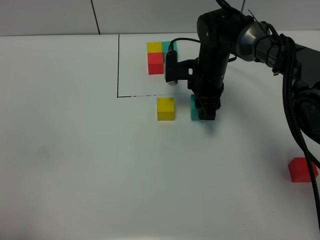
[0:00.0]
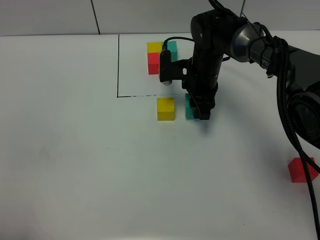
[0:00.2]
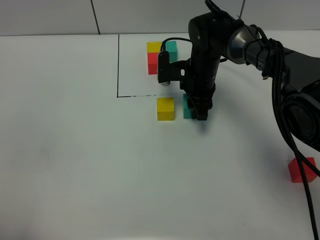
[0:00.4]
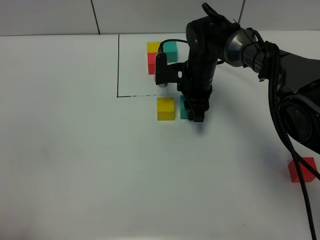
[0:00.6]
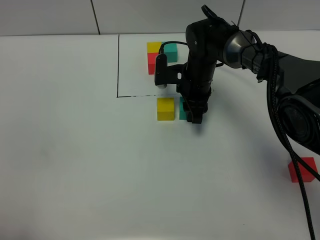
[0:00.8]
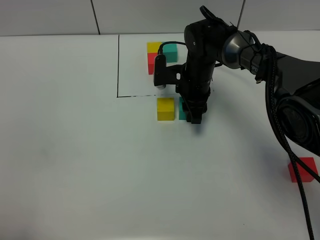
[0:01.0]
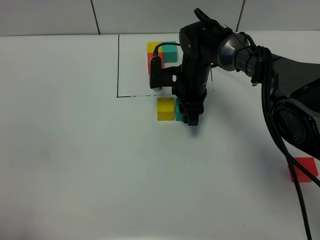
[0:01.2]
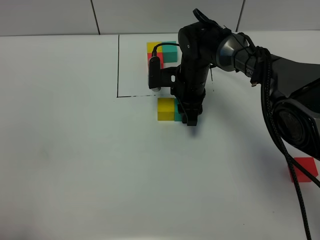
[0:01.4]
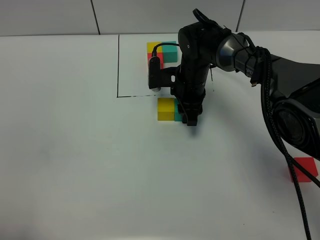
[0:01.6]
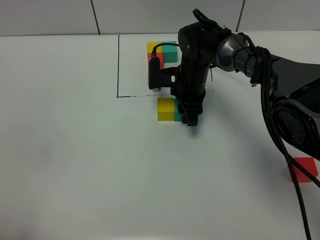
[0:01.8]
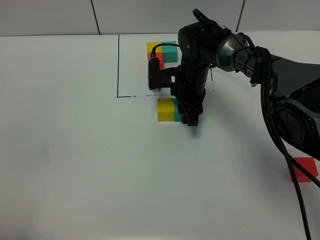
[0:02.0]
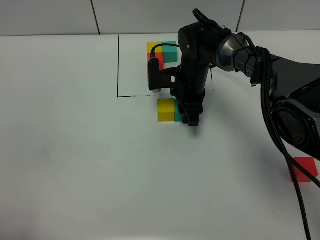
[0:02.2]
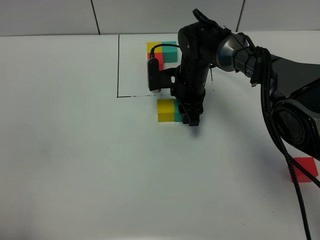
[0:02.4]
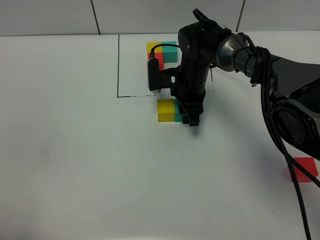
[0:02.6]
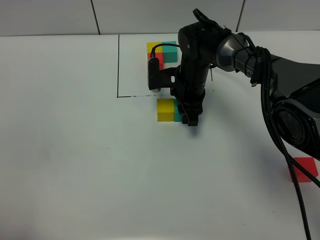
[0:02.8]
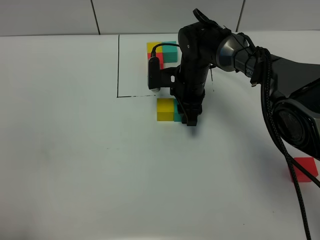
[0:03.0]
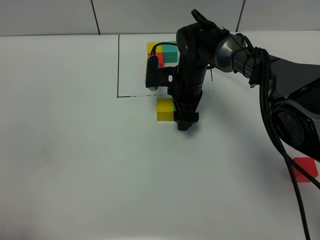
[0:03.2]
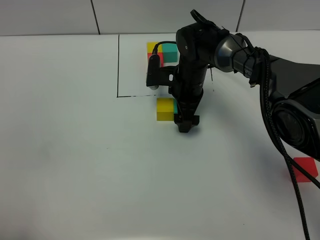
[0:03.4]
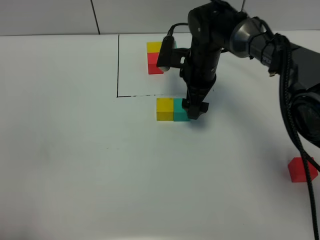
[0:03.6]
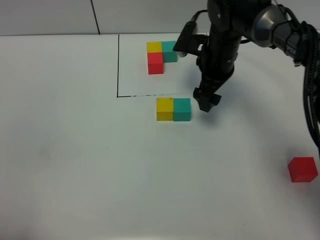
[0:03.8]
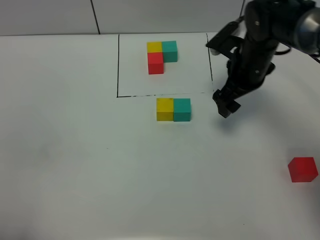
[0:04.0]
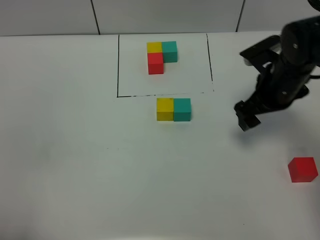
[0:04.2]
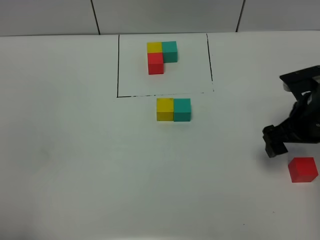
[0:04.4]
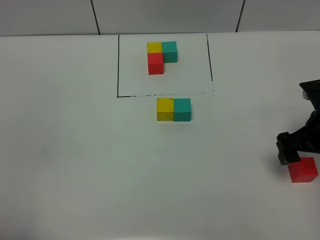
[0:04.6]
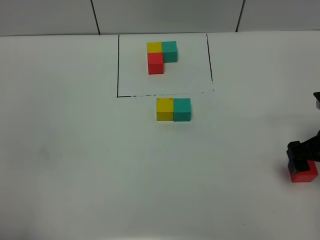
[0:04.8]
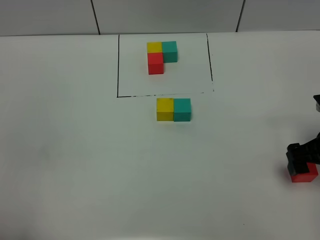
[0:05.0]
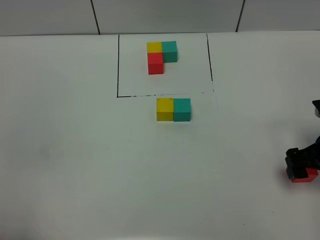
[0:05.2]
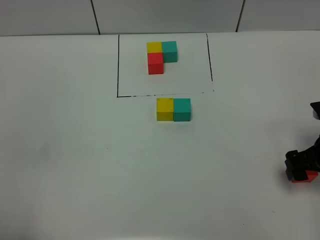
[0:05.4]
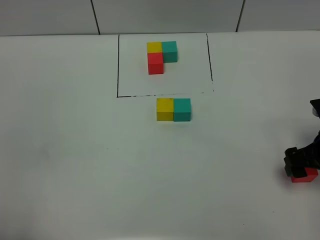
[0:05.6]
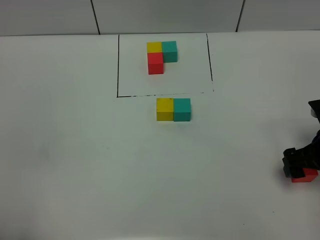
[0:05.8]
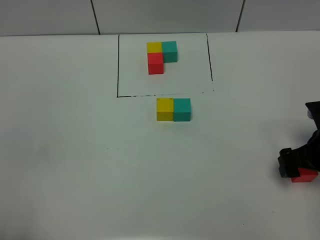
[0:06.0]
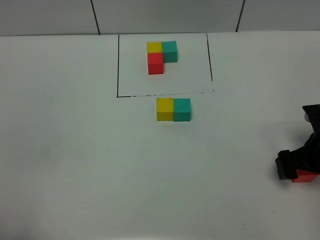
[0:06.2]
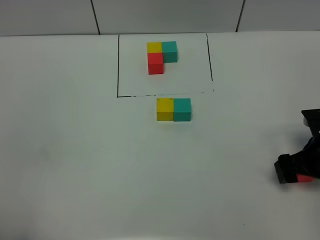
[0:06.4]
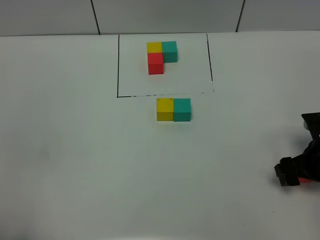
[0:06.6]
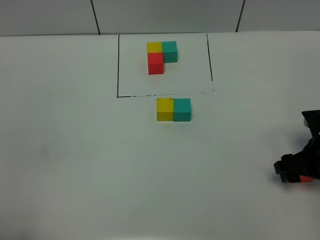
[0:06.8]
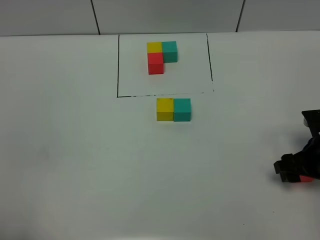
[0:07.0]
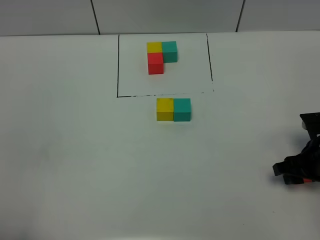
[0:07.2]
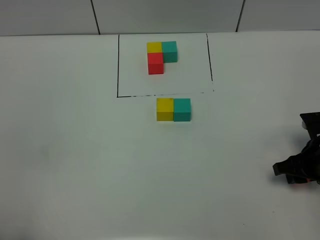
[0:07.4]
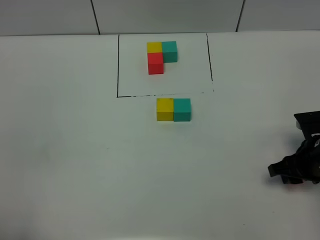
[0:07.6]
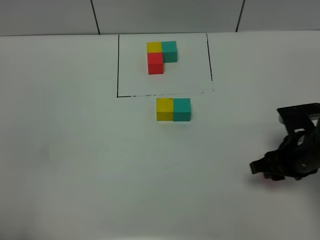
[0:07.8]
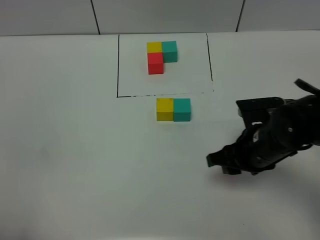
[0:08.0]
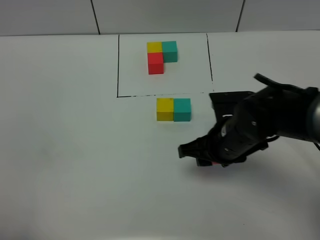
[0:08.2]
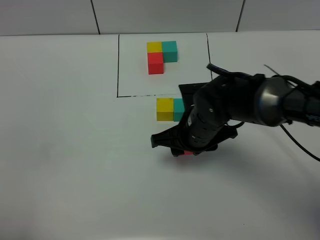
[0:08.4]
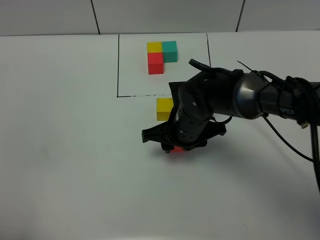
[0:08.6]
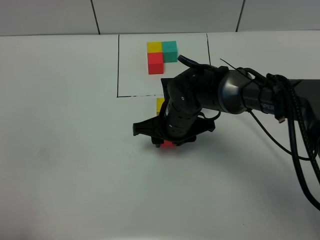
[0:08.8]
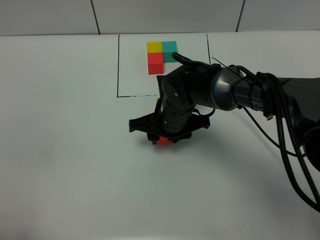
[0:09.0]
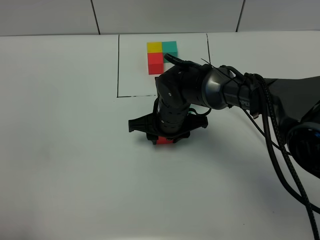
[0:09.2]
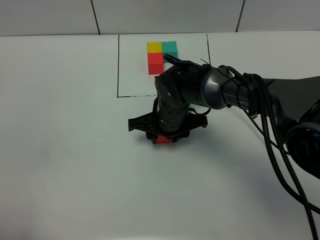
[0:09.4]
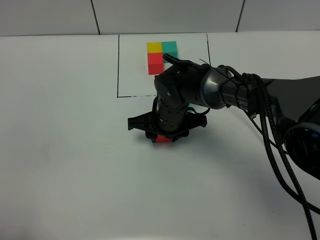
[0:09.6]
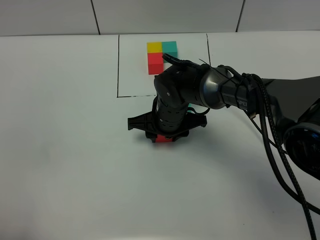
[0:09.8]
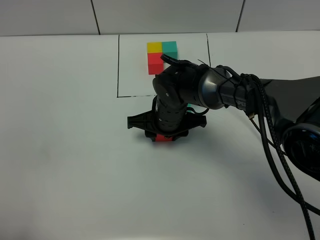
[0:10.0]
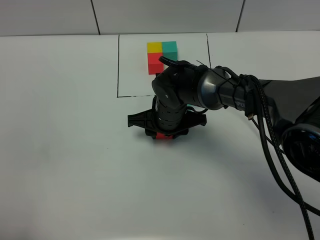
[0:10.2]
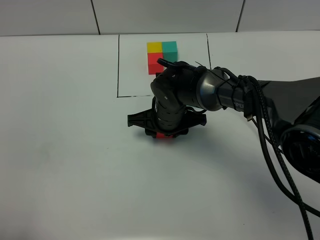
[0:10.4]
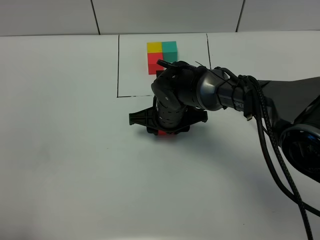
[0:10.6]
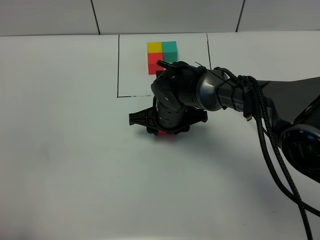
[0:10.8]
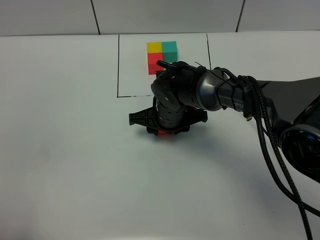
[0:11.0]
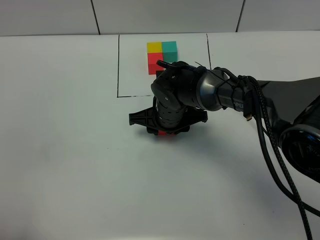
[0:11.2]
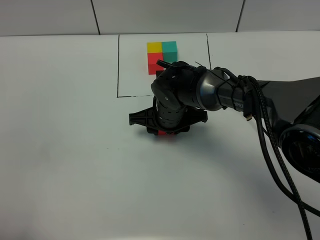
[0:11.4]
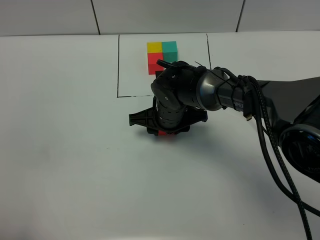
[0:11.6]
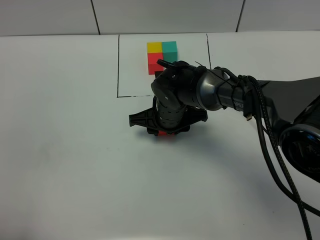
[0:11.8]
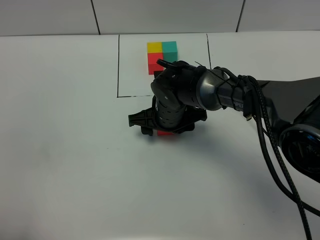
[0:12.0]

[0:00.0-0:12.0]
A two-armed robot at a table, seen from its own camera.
Task of the whole recording: According to the building block template in front, assemble the scattered blocks together.
Step, 0:00.0 to 0:03.4: Put the green build block on the right of the yellow build block.
0:00.0 to 0:01.6: The grippers move only a little.
0:01.6 to 0:03.0: The two grippers keep their place.
0:03.0 to 0:04.4: The right gripper heads to the right and backward, covering some 25 cm, and opens.
0:04.4 to 0:06.0: The right gripper changes place by roughly 5 cm.
0:06.0 to 0:07.6: The right gripper closes its fingers.
0:07.6 to 0:09.0: The right gripper shifts approximately 25 cm to the left.
0:09.0 to 0:10.4: The grippers stay close to where they were, moving slightly.
0:10.4 to 0:12.0: The right gripper opens.

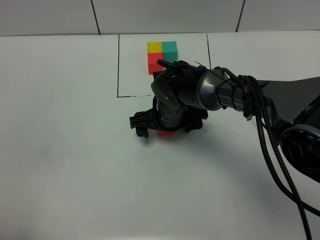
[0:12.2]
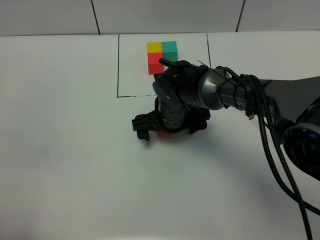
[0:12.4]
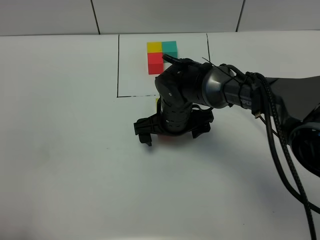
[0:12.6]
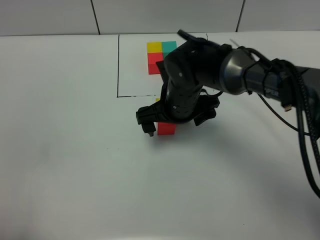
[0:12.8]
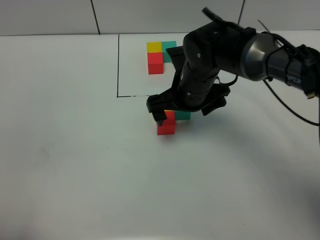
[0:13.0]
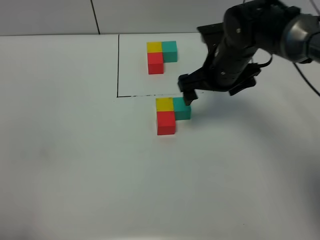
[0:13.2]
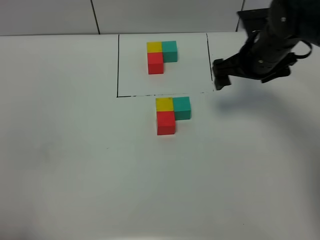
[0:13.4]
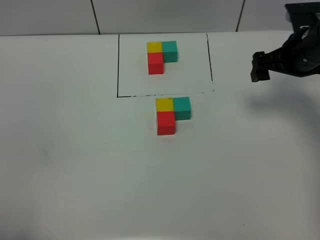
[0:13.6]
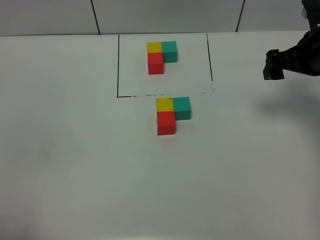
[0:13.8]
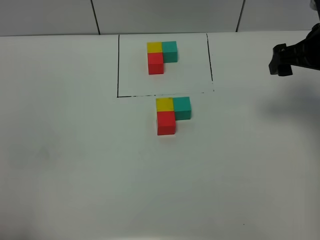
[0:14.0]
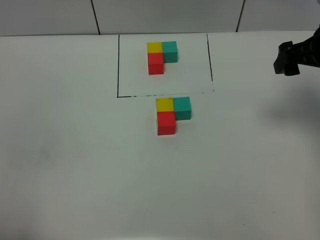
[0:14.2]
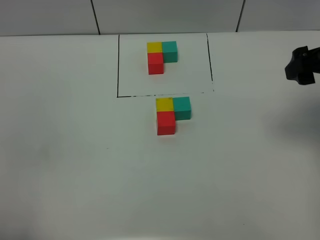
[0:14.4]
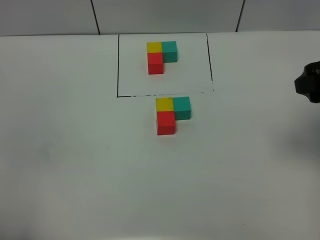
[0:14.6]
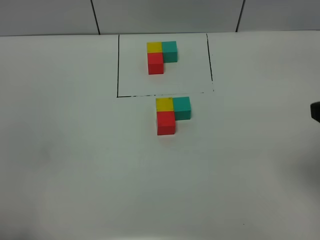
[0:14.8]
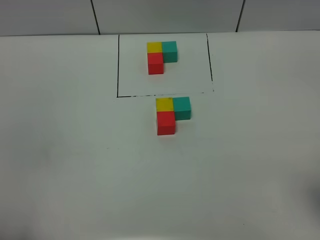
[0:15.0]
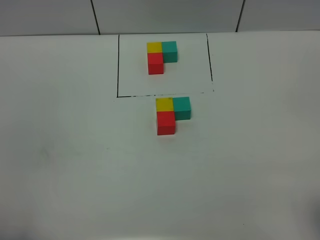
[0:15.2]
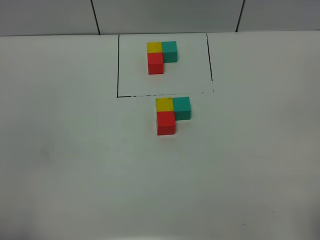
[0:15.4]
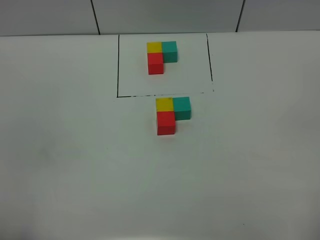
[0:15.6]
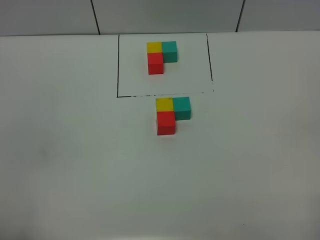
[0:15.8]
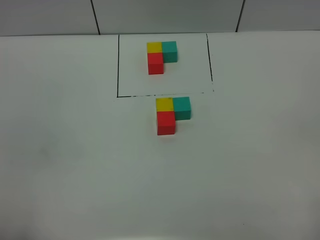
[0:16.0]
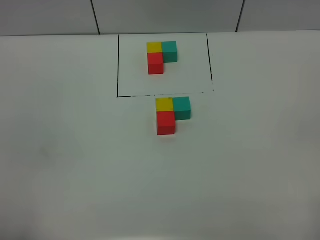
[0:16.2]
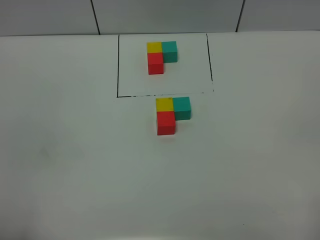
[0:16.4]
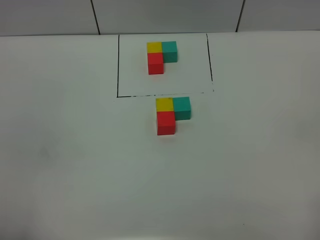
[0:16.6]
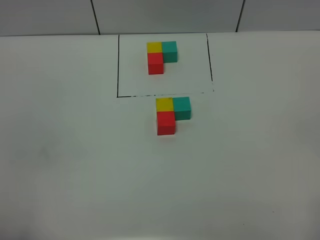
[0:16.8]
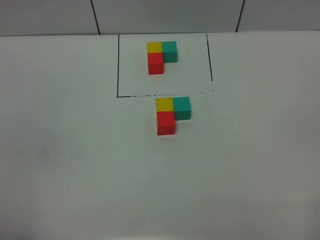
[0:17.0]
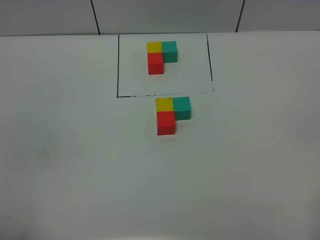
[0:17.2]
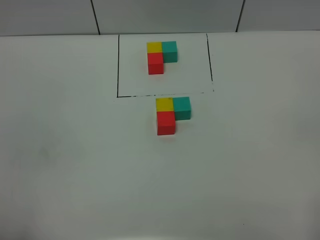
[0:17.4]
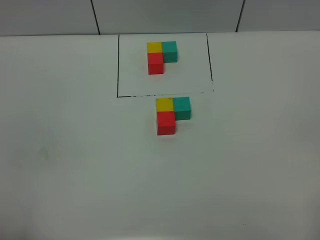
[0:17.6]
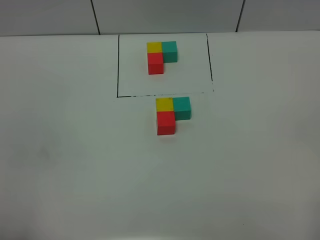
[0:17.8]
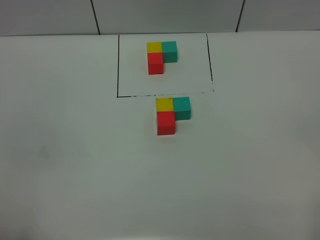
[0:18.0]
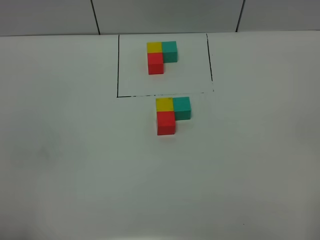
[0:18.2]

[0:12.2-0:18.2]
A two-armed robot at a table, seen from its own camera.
Task of the whole recording: According to the building block template in front, assemble the scattered blocks together.
0:12.2 to 0:13.8: The right gripper shifts approximately 30 cm to the right and upward.
0:13.8 to 0:15.2: The right gripper travels backward by about 30 cm.
0:16.6 to 0:18.2: The two grippers keep their place.
